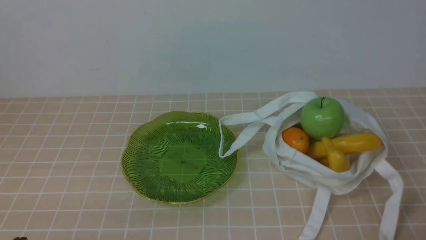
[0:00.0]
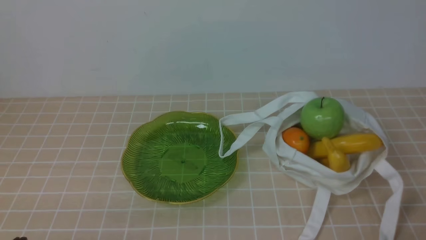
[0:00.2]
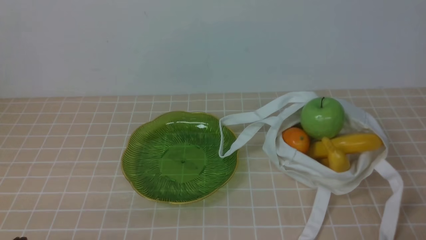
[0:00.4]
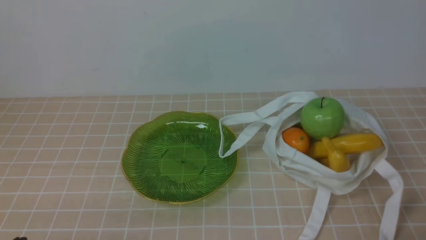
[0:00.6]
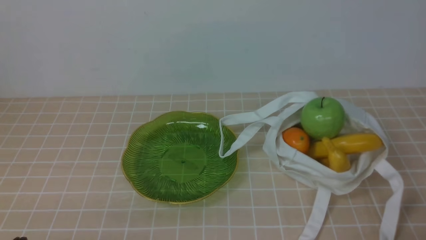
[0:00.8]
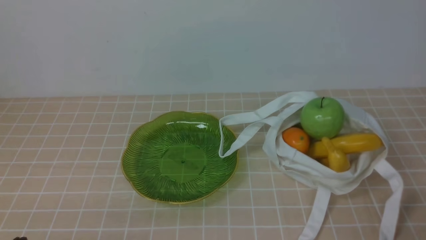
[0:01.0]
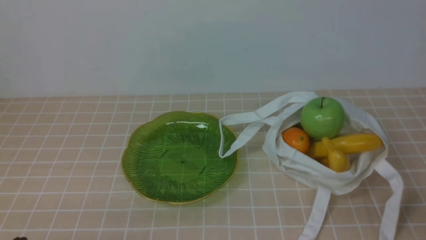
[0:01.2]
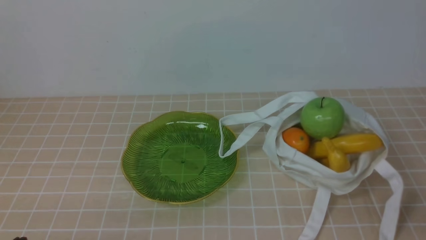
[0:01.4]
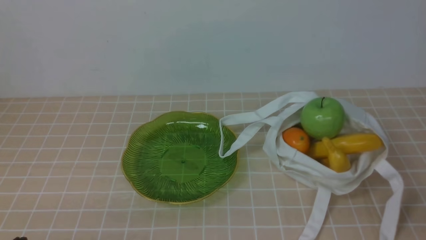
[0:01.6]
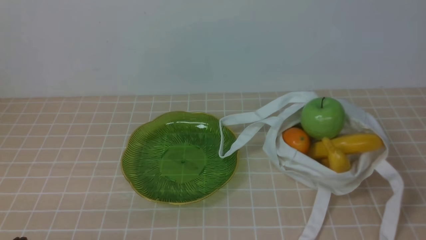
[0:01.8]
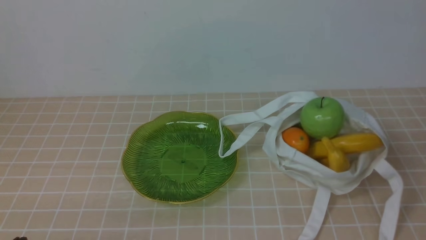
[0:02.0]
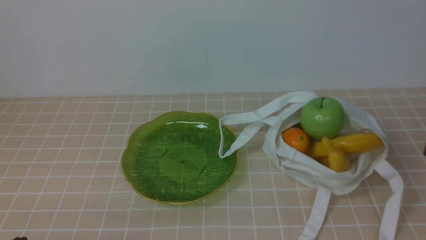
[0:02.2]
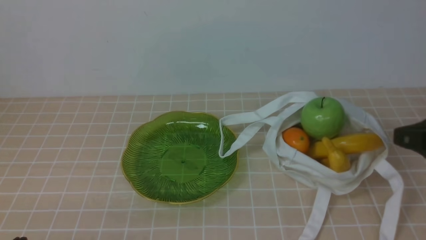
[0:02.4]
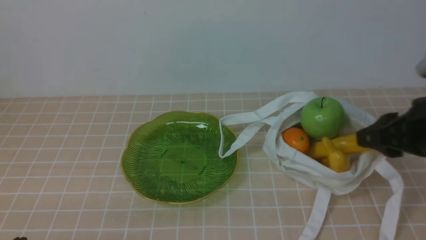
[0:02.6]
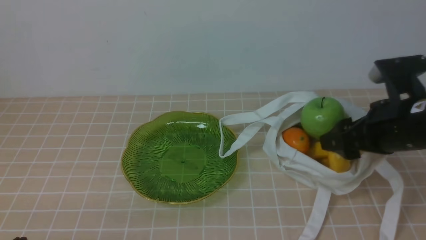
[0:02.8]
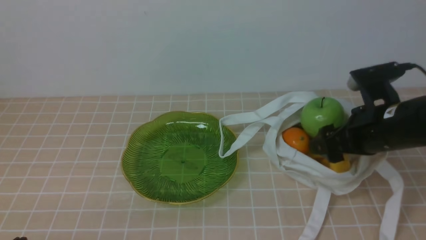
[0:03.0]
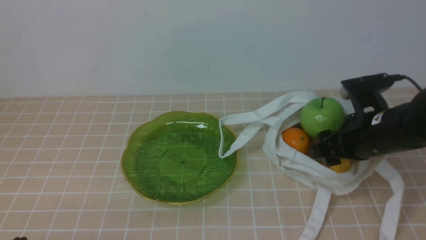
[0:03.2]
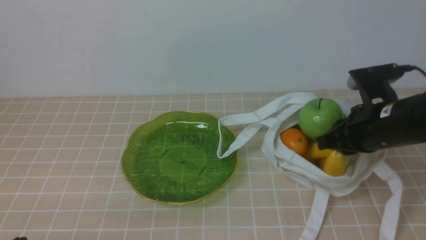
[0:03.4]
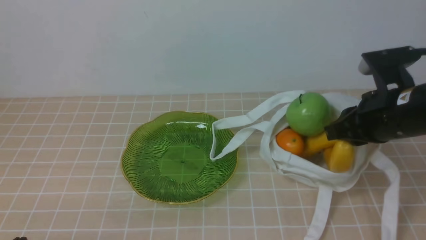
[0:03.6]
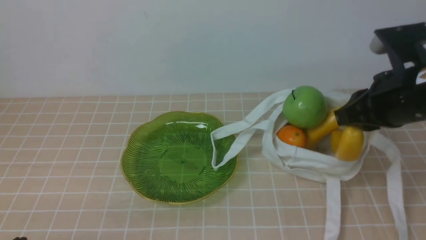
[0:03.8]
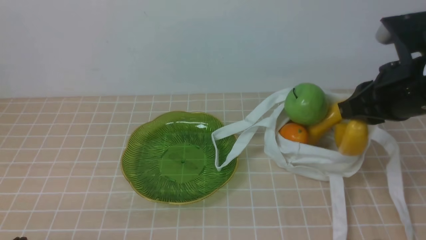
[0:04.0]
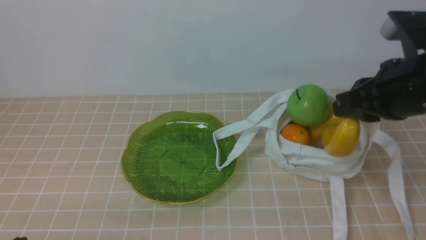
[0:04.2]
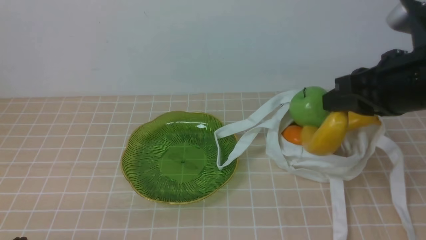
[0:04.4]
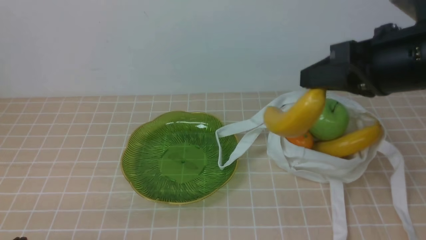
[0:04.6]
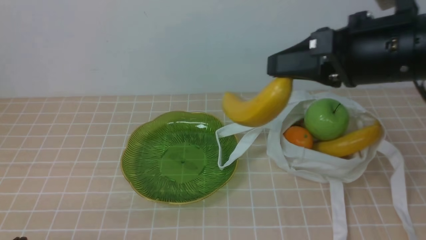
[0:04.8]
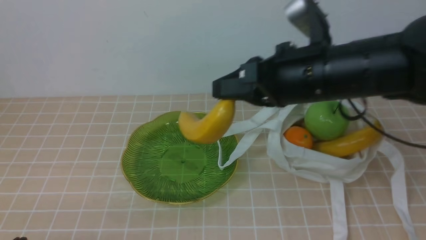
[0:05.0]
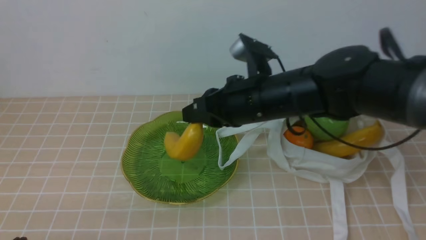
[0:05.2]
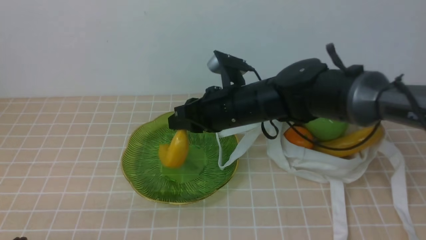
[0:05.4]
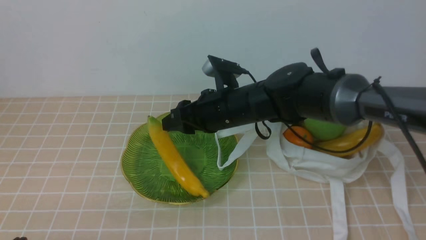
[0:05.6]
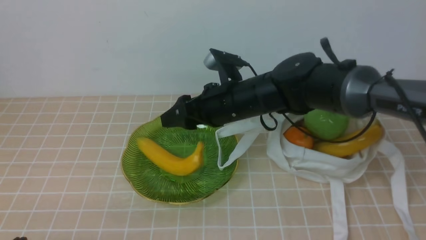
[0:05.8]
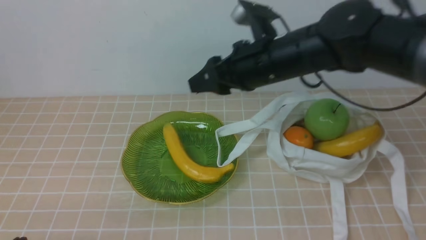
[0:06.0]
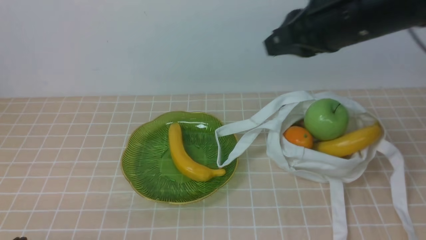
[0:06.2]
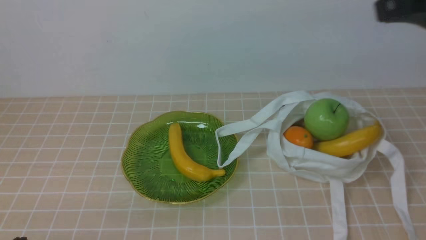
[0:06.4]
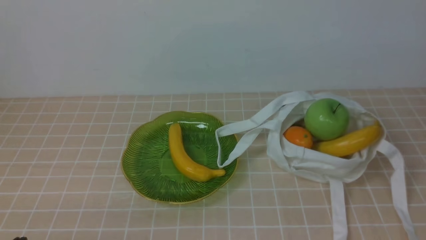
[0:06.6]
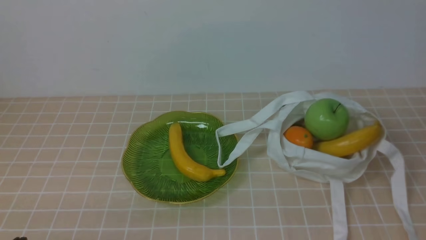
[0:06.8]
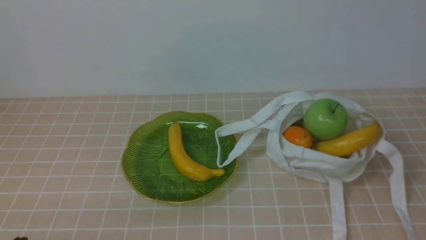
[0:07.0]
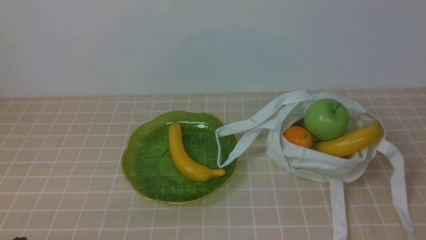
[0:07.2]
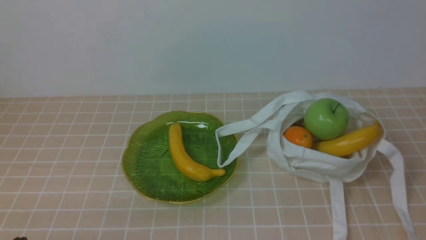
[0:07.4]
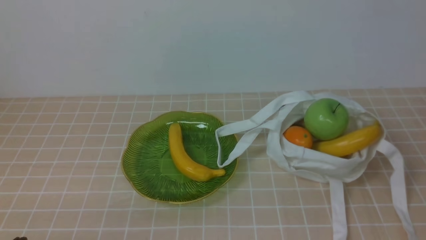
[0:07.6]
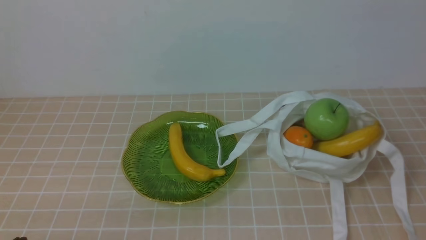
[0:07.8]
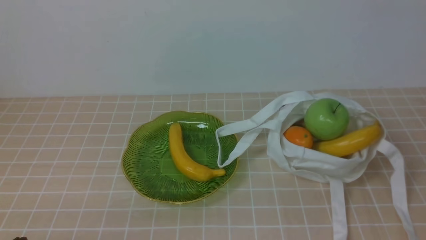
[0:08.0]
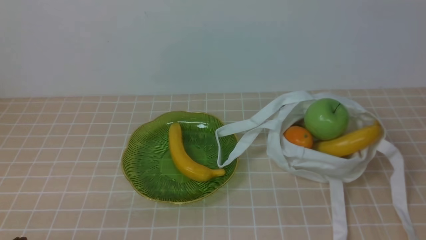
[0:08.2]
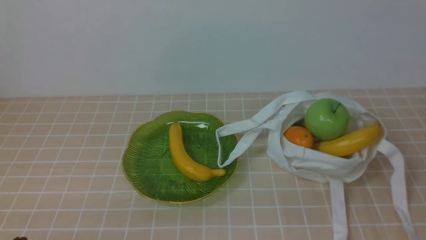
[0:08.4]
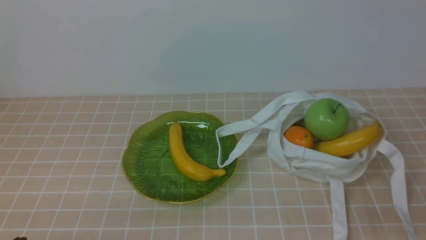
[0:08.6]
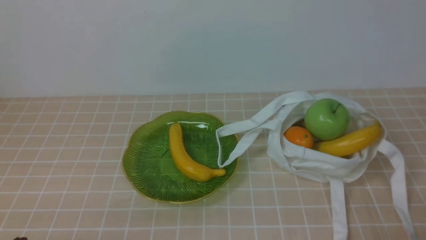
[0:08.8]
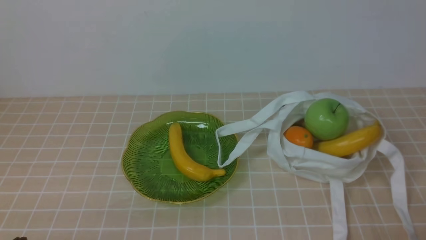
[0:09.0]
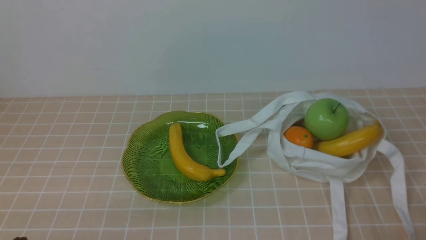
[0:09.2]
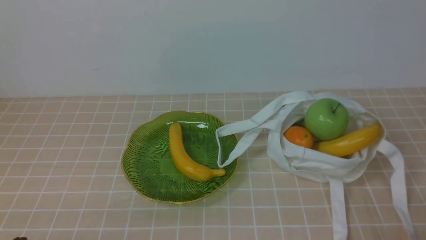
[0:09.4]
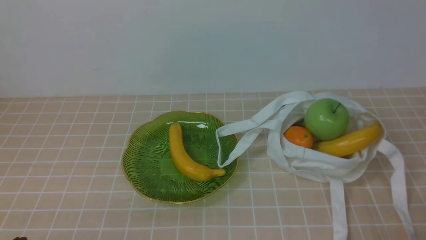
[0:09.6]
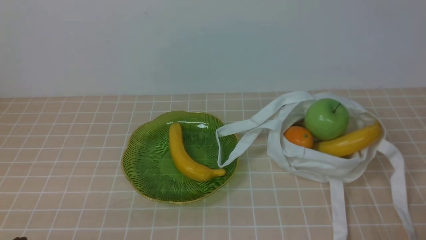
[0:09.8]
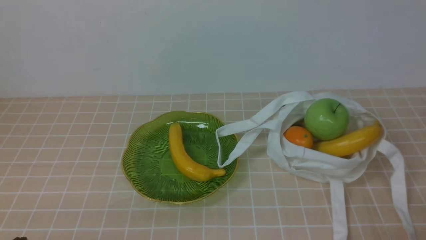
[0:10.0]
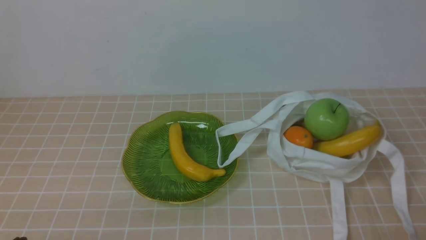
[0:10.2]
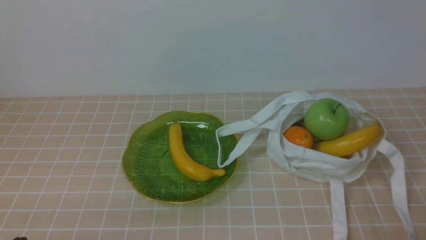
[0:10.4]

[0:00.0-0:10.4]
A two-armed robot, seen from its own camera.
Step, 0:00.0 to 0:04.4: use the right arm to grab a banana from the bag.
Step, 0:04.6 to 0:05.6: use the right arm to put the banana into the empty plate on the right.
0:01.4 to 0:03.0: The right gripper is displaced forward by some 20 cm, and opens up.
0:03.0 to 0:04.4: The right gripper shifts roughly 10 cm upward, and closes up.
0:04.4 to 0:06.0: The right gripper heads to the left and forward, covering about 15 cm, and opens its fingers.
0:06.0 to 0:07.4: The right gripper is displaced backward and to the right by roughly 40 cm, and closes.
0:09.0 to 0:10.4: The two grippers keep their place.

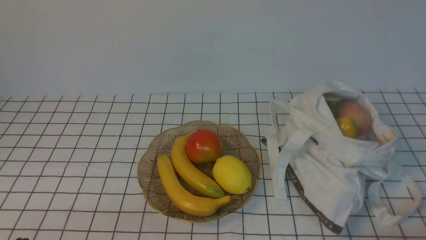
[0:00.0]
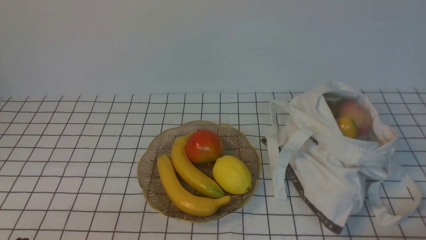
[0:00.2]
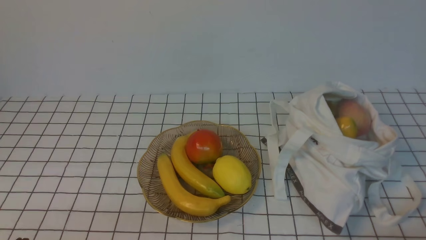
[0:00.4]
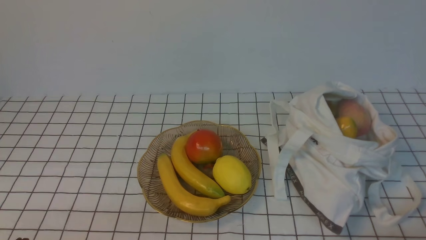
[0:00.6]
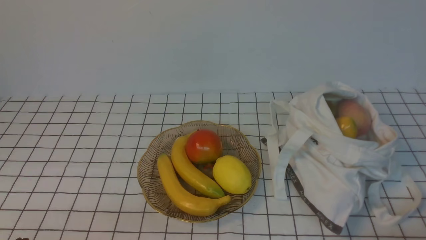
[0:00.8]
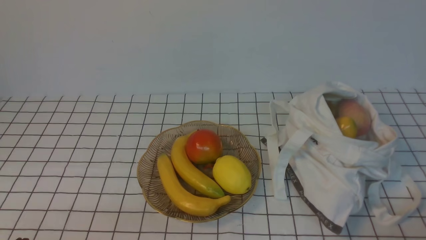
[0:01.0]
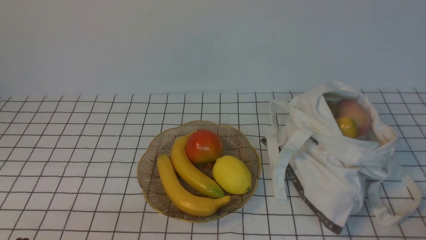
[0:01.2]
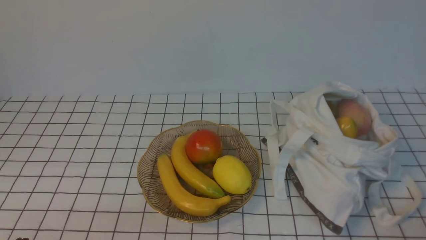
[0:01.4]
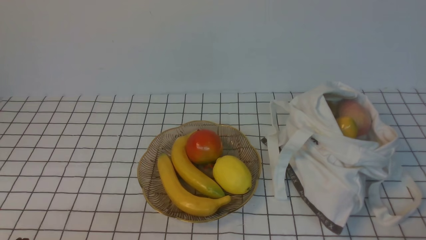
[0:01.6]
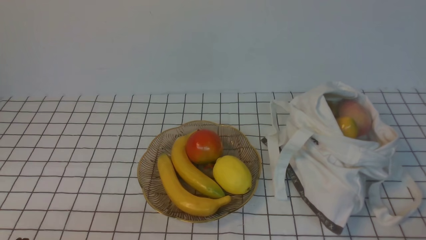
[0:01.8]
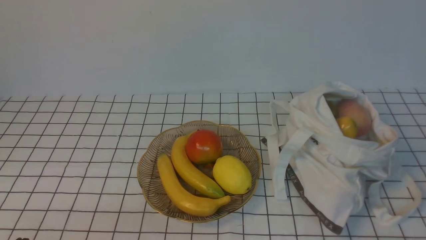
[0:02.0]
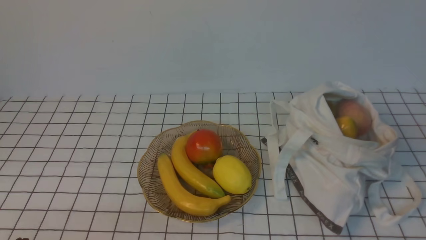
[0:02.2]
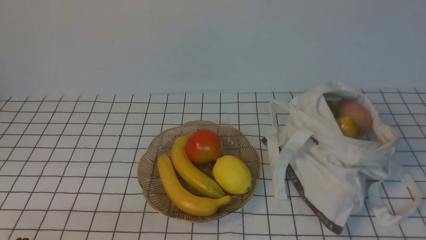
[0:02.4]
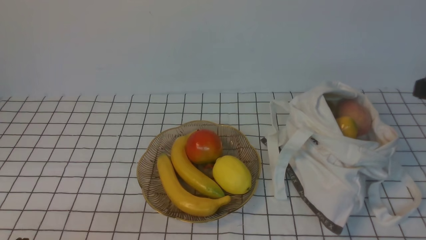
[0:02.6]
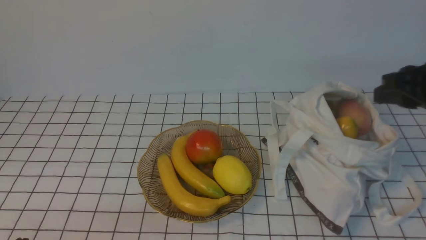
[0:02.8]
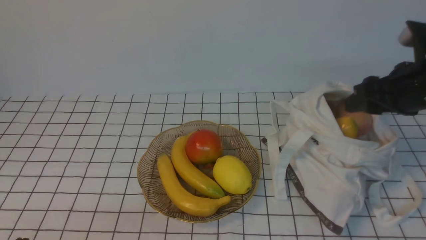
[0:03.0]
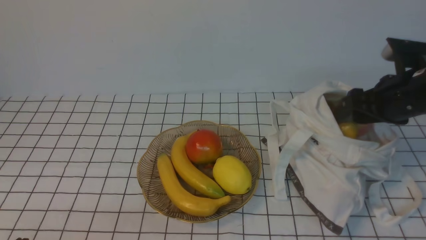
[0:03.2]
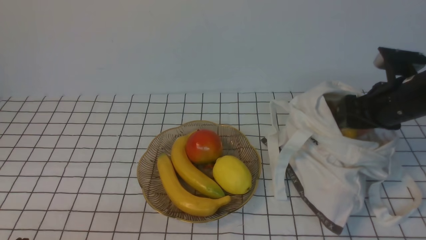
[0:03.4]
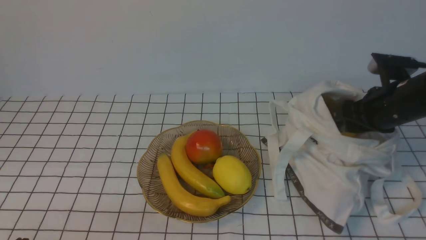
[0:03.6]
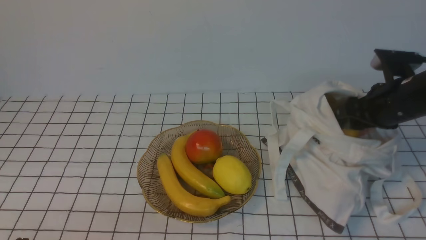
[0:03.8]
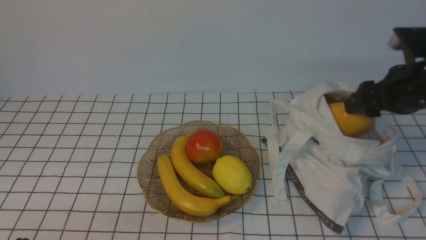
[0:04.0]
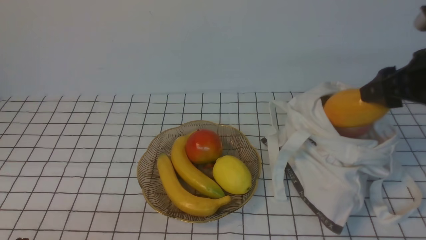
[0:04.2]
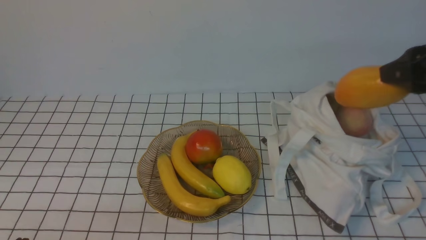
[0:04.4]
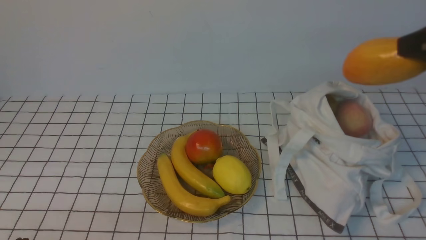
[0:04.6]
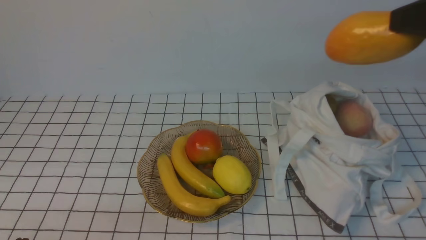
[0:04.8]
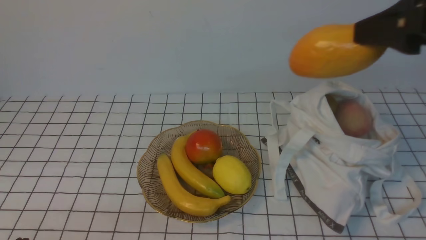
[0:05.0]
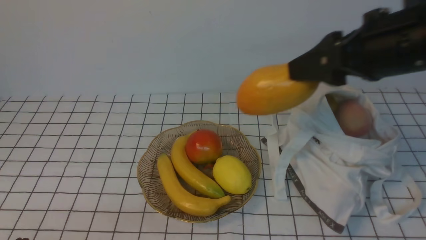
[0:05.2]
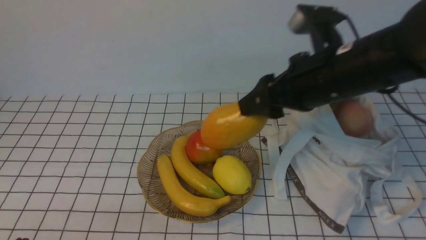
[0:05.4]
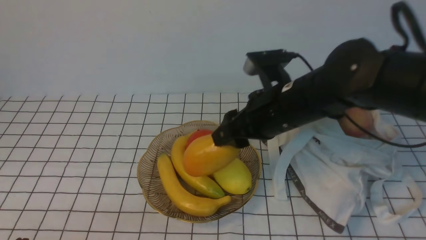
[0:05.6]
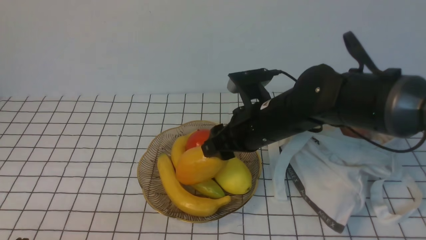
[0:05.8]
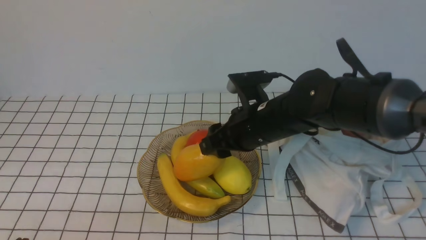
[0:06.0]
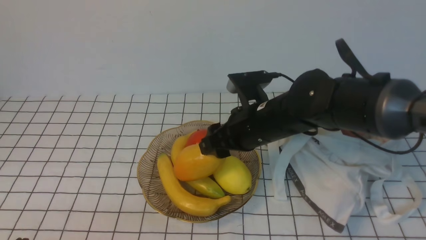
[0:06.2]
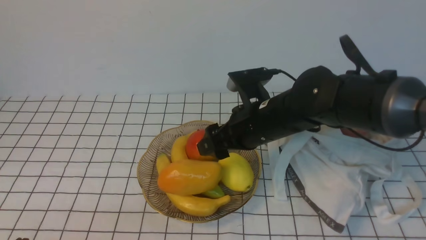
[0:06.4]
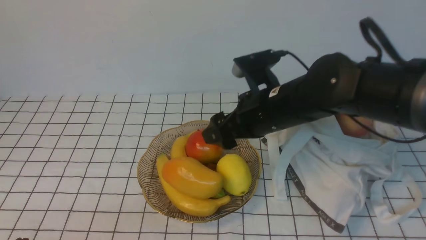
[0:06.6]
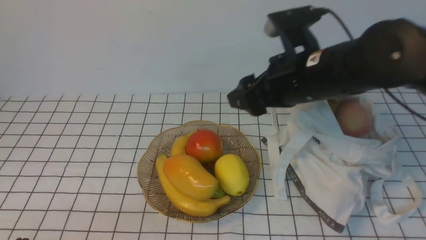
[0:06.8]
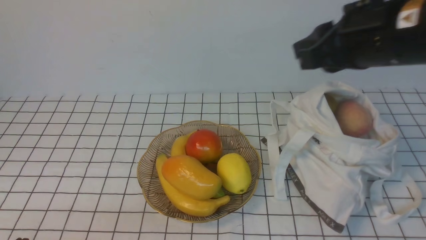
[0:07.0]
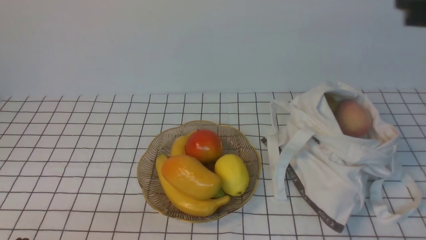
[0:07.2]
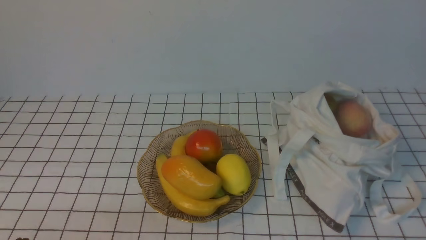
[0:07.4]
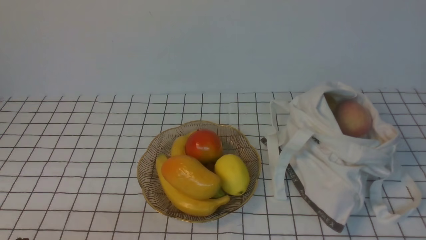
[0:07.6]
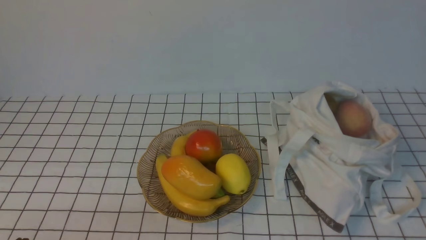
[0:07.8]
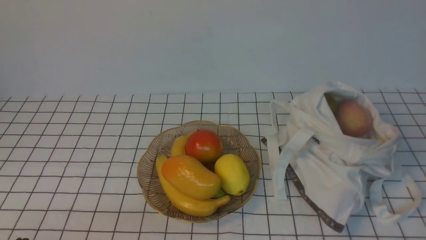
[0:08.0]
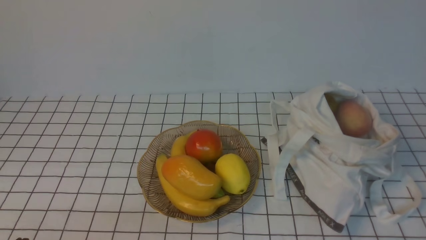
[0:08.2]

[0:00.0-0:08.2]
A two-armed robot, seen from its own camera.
Step, 0:00.0 to 0:03.6: use the right arm to grab a mango from the bag.
Step, 0:03.8 to 0:06.2: use the right arm to put the mango into the empty plate on the left.
0:01.6 to 0:03.2: The right gripper goes roughly 25 cm forward, and opens up.
0:03.2 to 0:05.0: The right gripper travels upward and backward by about 15 cm.
0:05.0 to 0:06.6: The right gripper shifts approximately 20 cm to the left, downward and forward.
0:06.6 to 0:08.2: The right gripper is displaced backward, to the right and upward by approximately 40 cm, and closes up.
